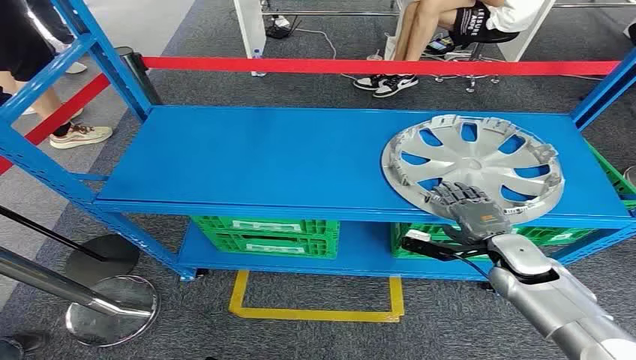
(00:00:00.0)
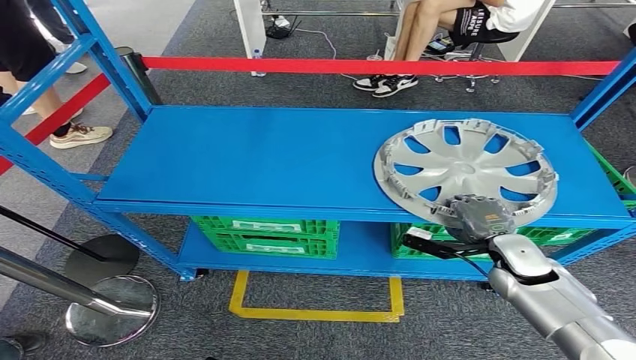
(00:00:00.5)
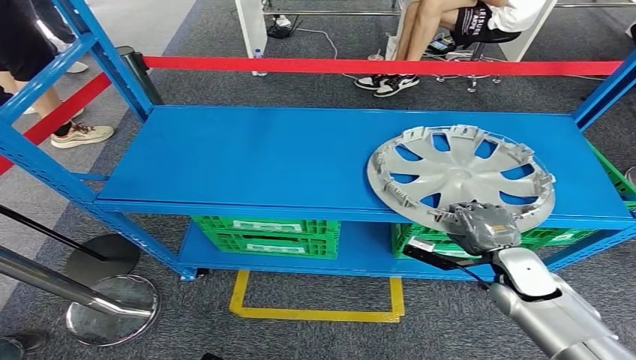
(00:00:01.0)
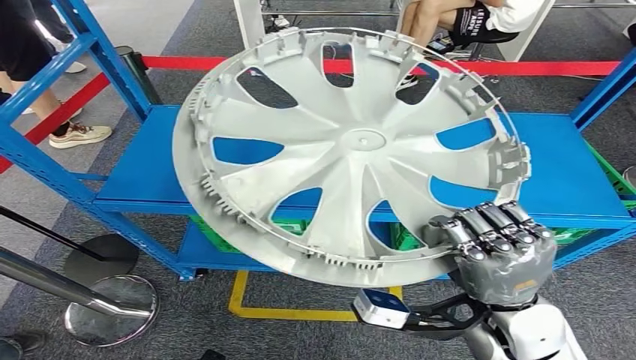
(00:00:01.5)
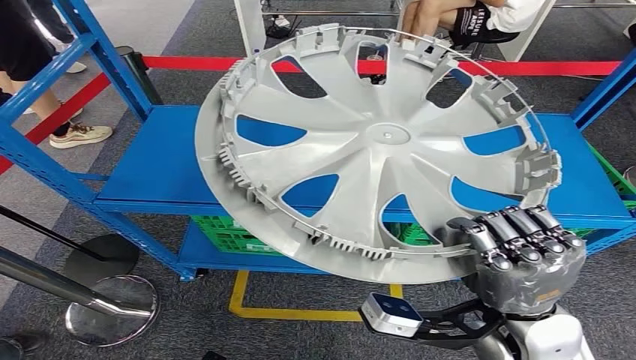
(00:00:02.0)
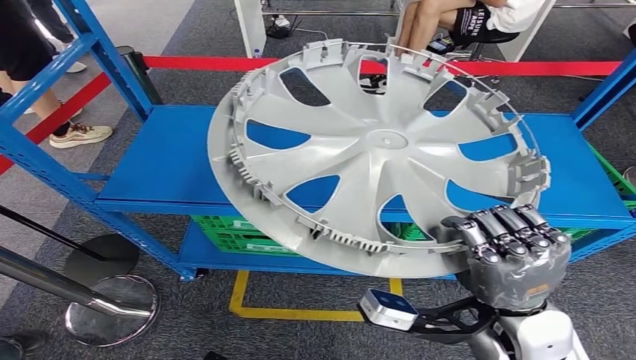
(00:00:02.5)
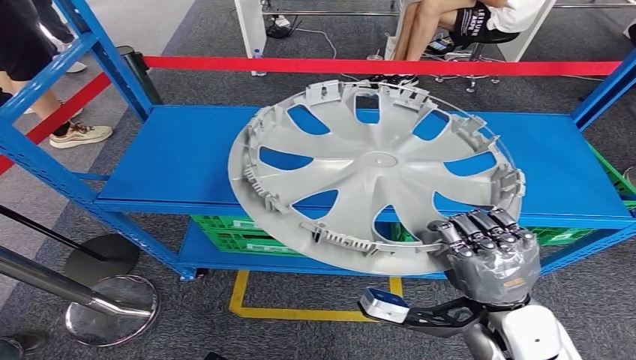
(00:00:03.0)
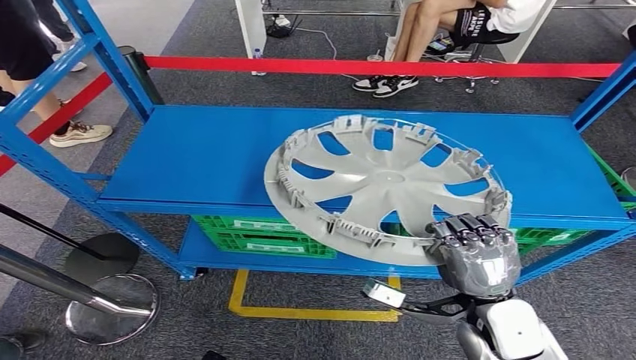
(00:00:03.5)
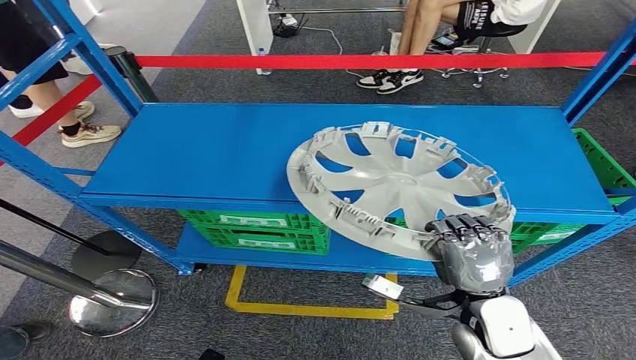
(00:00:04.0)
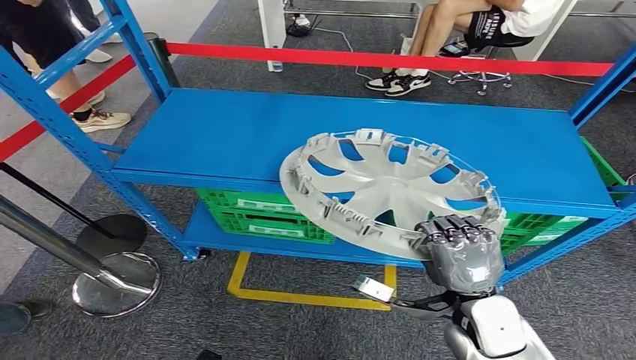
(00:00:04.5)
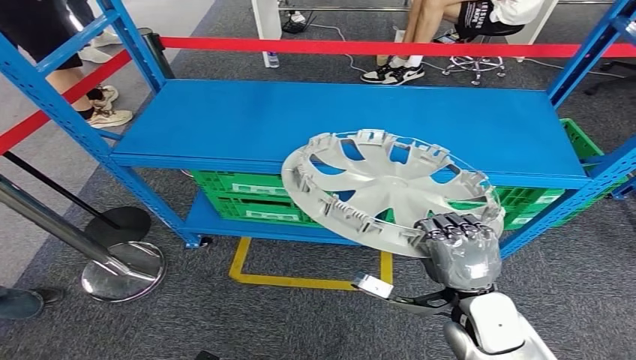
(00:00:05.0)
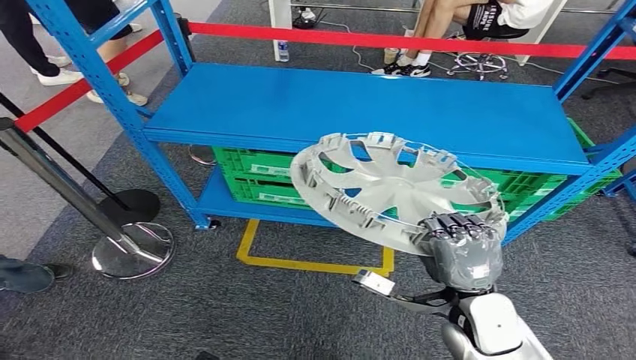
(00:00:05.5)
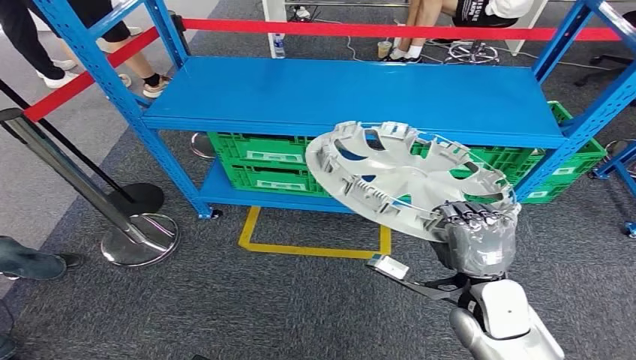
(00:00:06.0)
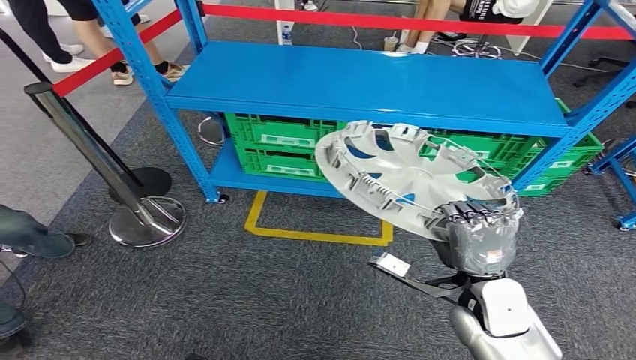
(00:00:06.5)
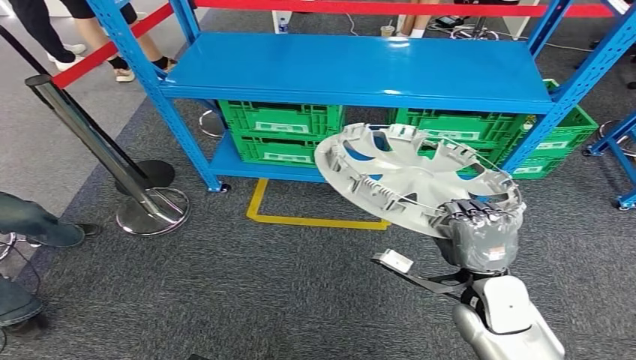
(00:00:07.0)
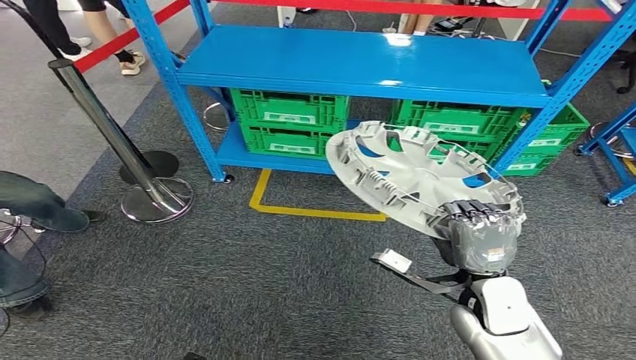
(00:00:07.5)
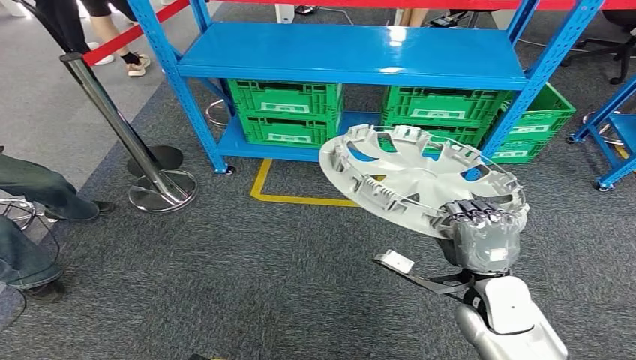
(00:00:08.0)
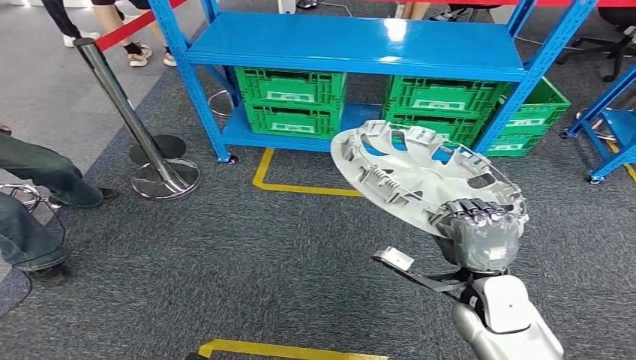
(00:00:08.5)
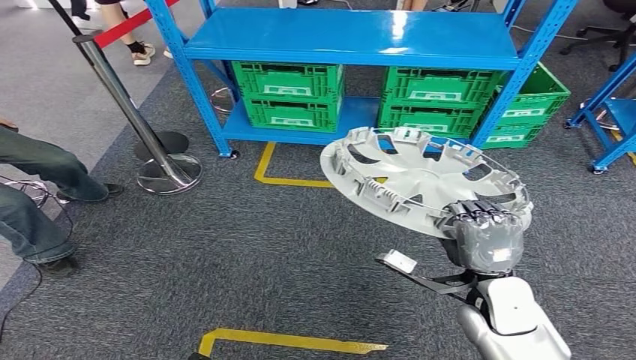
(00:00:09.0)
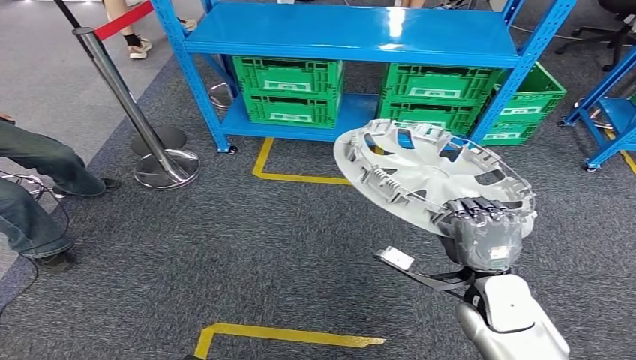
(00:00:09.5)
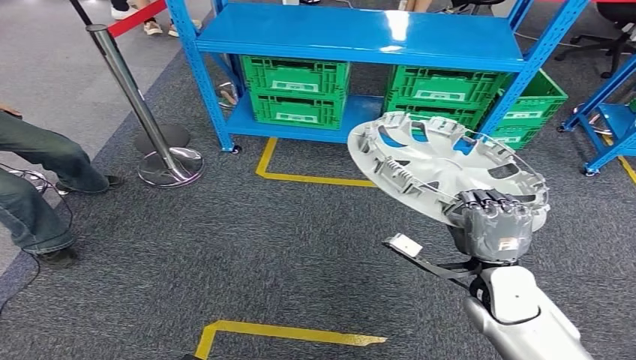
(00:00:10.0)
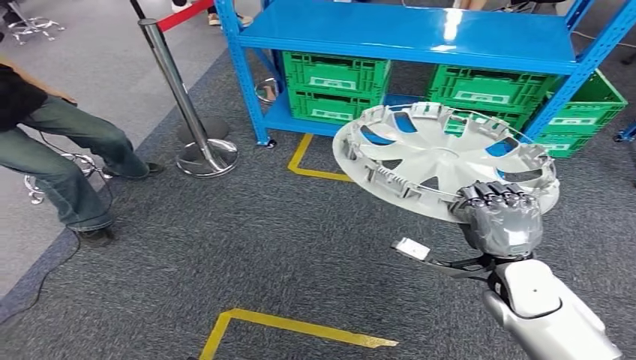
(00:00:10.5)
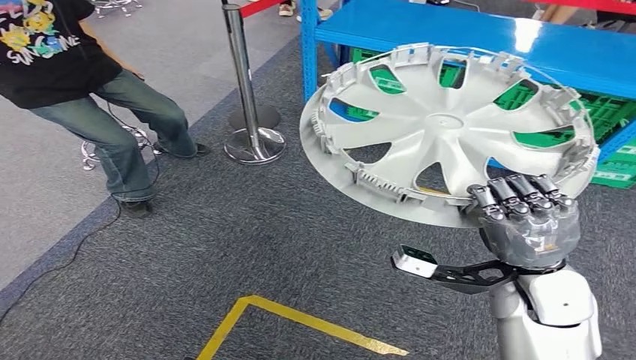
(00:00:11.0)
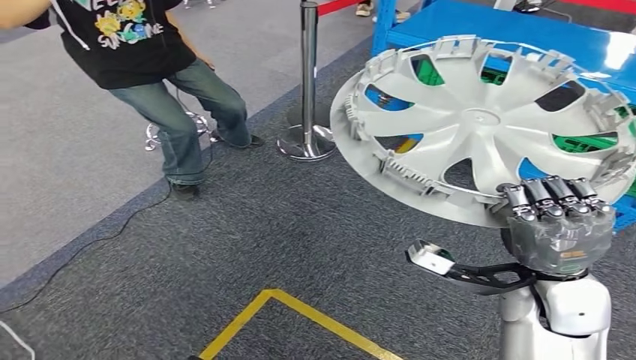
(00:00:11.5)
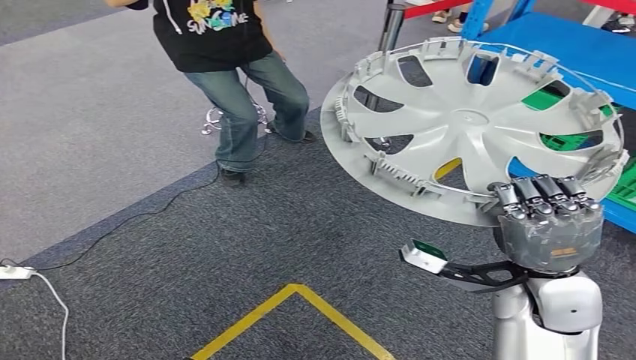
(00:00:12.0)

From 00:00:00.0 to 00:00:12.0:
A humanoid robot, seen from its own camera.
Step, from 00:00:00.0 to 00:00:02.0: Pick up the small component from the shelf.

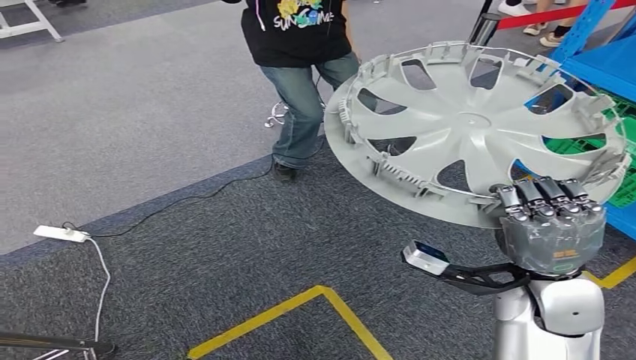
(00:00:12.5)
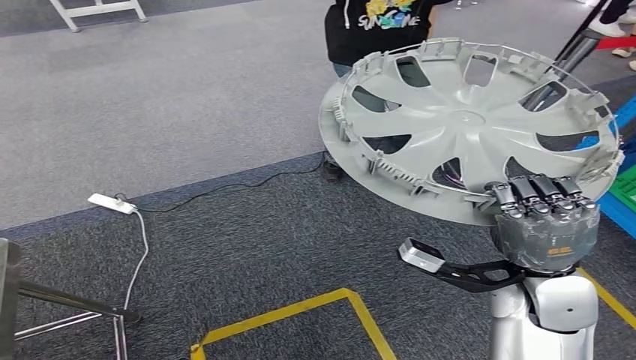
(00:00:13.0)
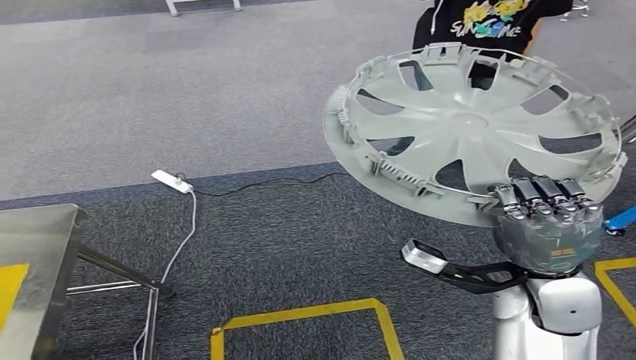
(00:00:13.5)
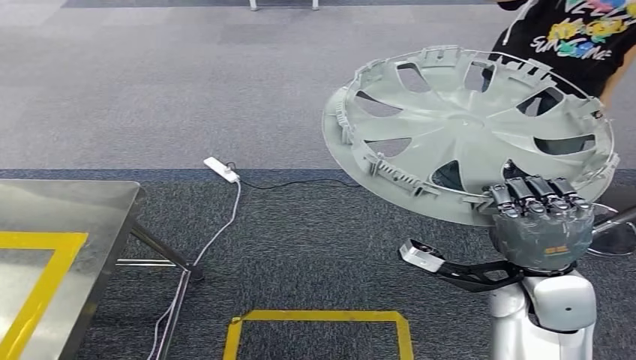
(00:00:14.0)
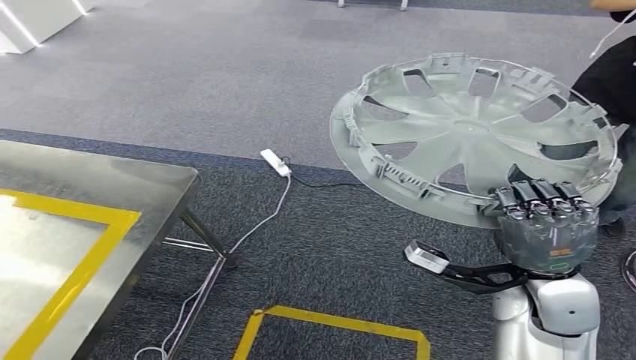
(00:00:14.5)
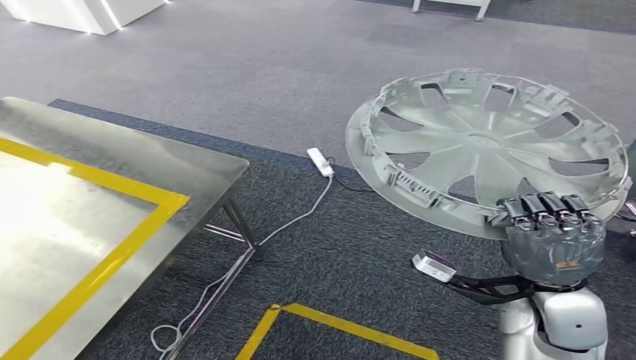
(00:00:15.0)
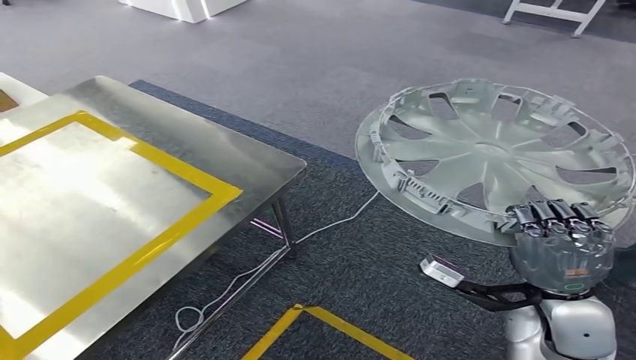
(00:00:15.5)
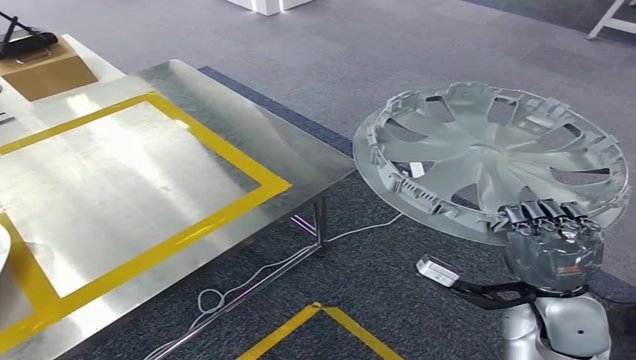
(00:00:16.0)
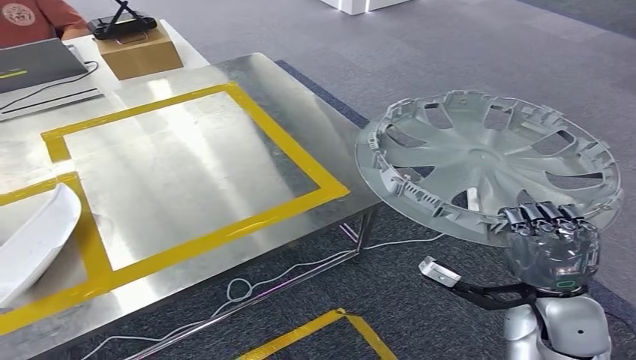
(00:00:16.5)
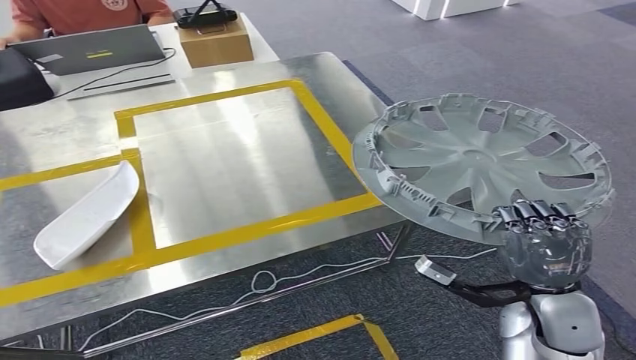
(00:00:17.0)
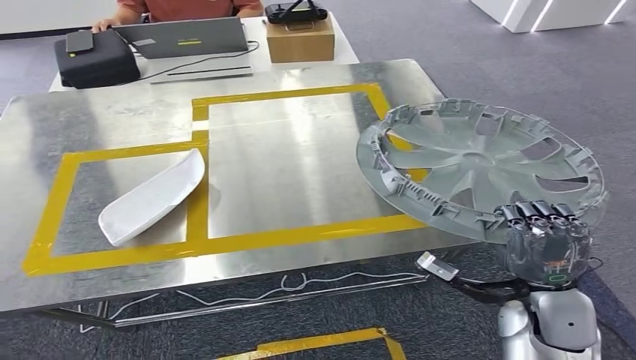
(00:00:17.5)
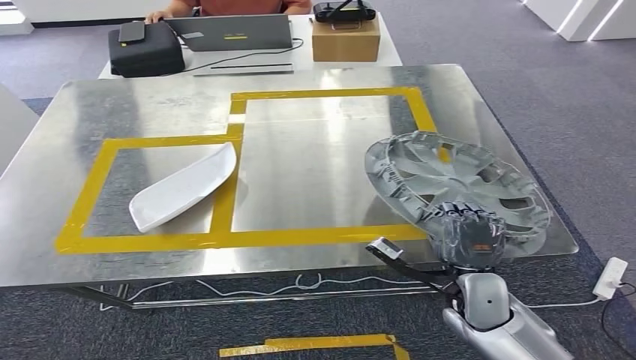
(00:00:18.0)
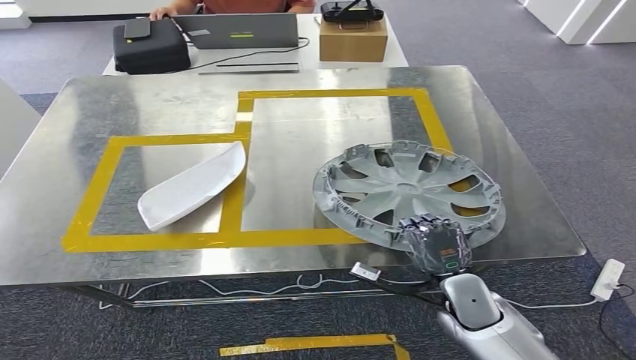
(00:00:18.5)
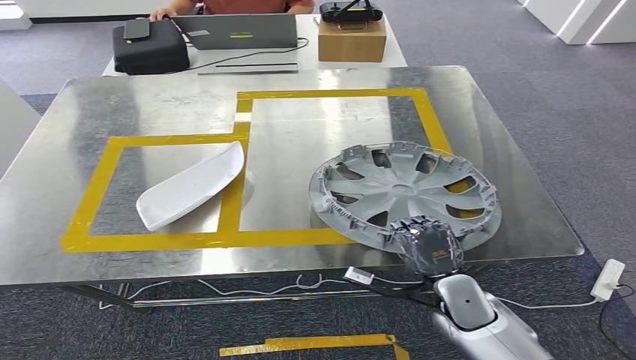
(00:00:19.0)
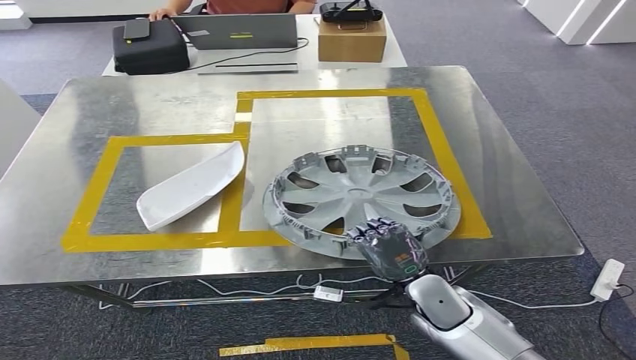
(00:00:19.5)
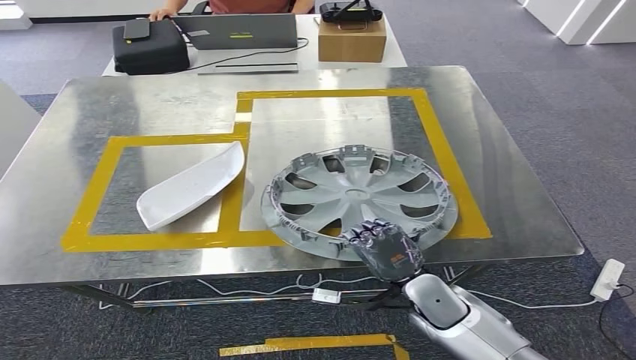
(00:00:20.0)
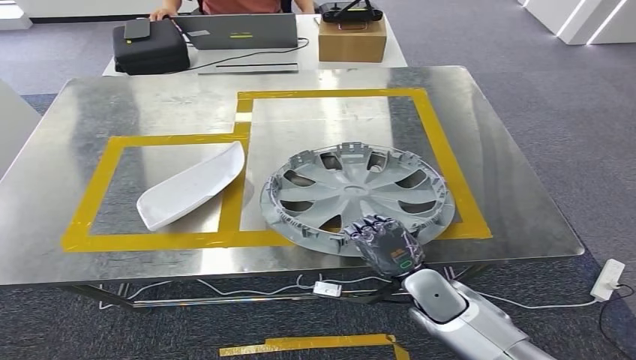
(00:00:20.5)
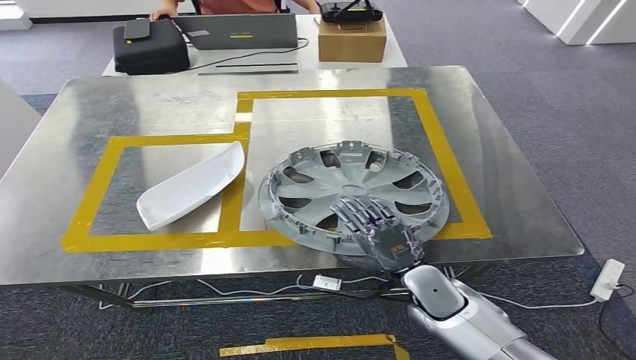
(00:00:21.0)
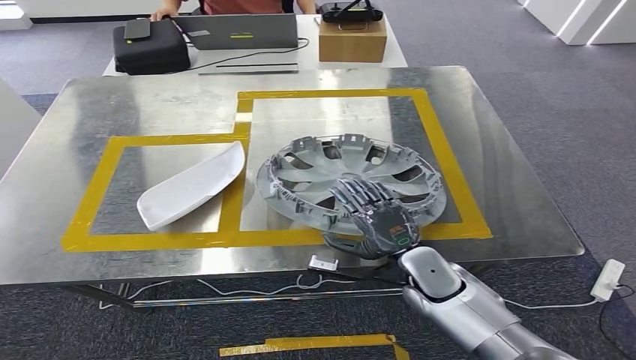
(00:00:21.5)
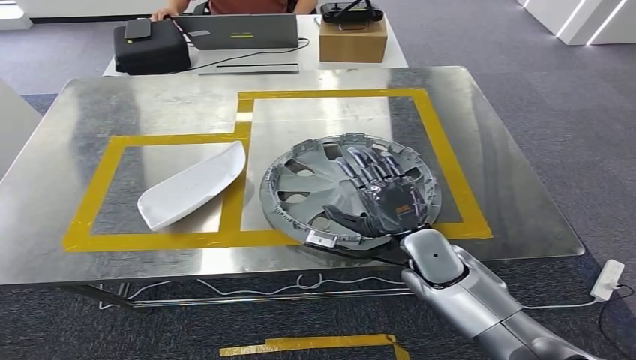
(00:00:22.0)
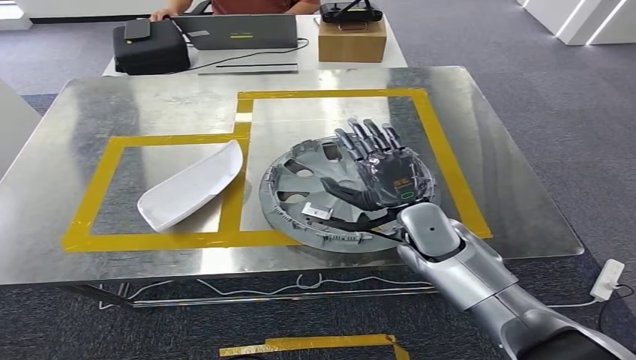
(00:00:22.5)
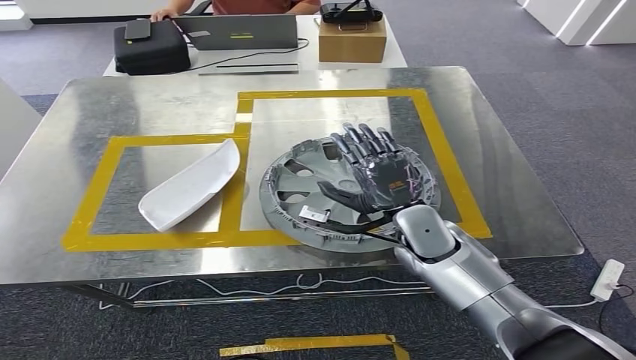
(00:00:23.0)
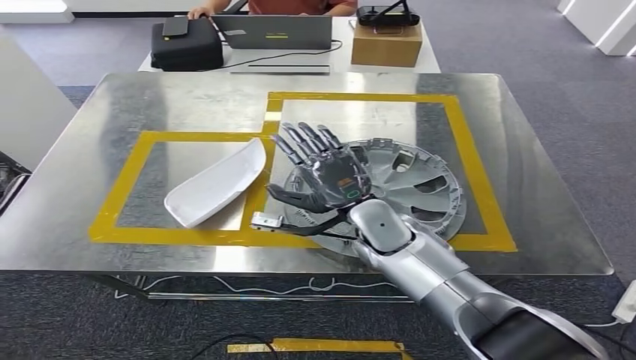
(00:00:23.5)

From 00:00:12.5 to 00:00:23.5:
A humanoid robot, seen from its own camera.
Step, from 00:00:12.5 to 00:00:17.0: Move the small component to the workbench.
From 00:00:18.0 to 00:00:20.0: The right hand shifts approximately 5 cm to the left.
From 00:00:20.0 to 00:00:21.5: The hands stay close to where they were, moving slightly.
